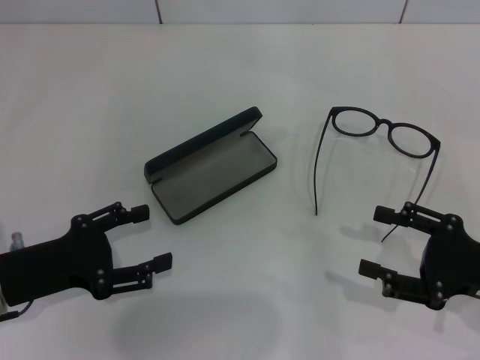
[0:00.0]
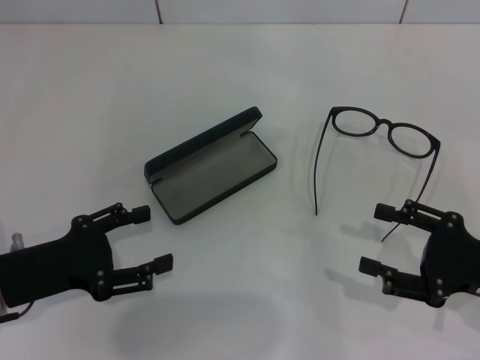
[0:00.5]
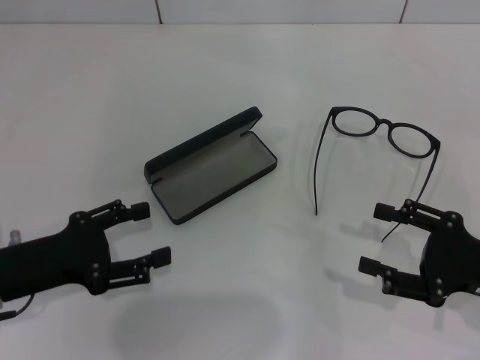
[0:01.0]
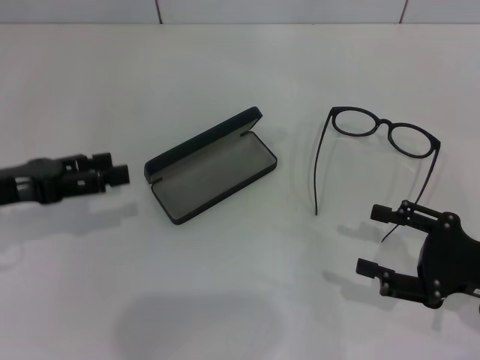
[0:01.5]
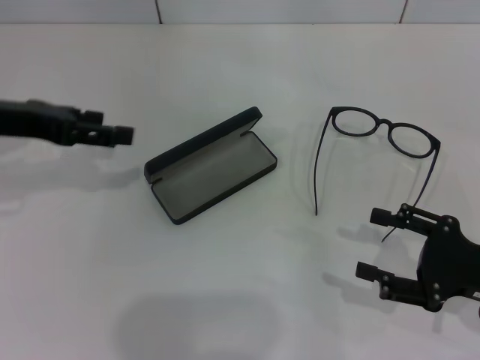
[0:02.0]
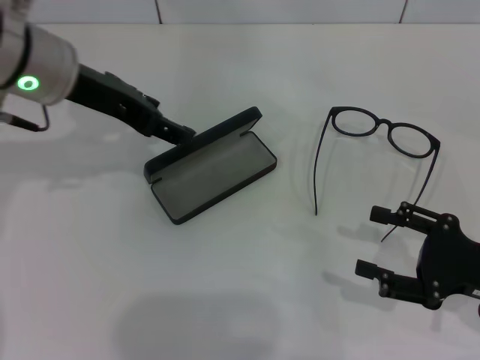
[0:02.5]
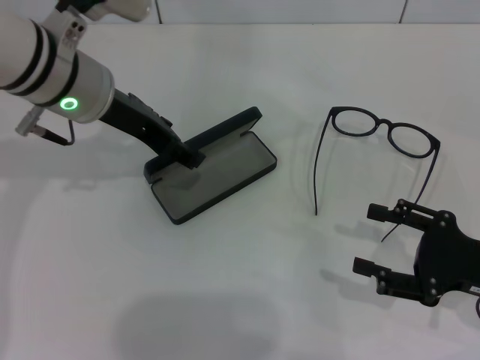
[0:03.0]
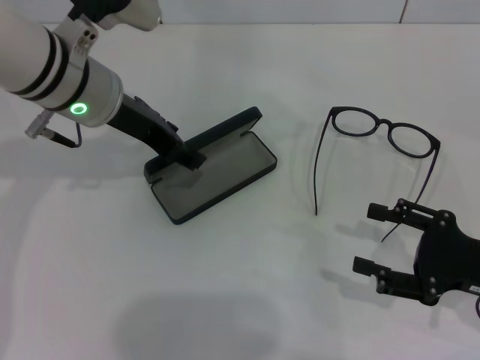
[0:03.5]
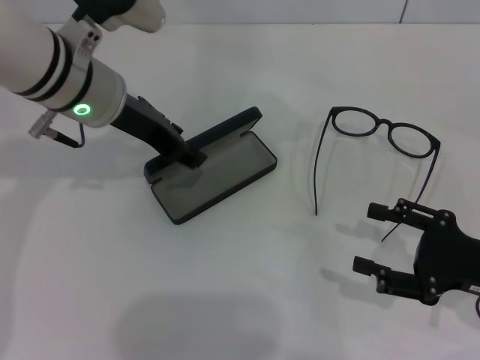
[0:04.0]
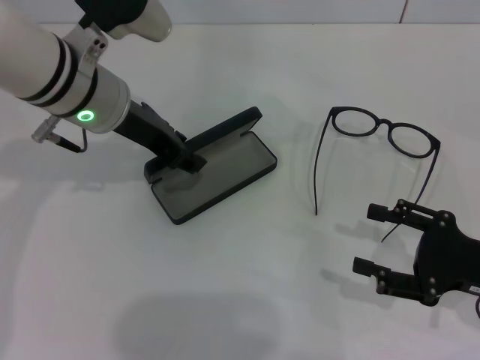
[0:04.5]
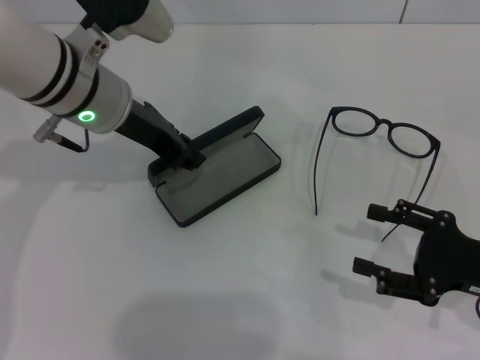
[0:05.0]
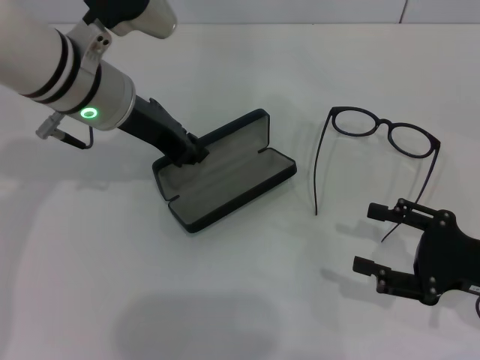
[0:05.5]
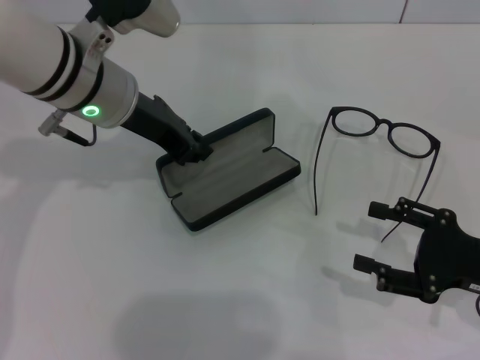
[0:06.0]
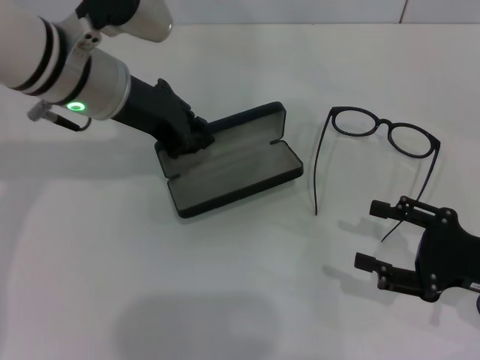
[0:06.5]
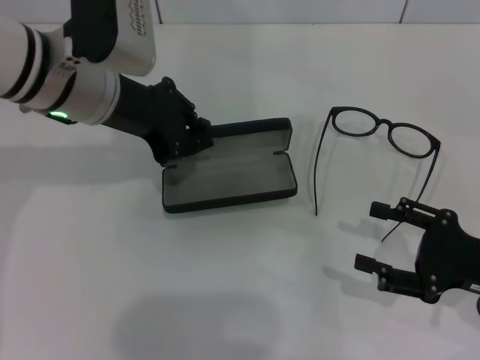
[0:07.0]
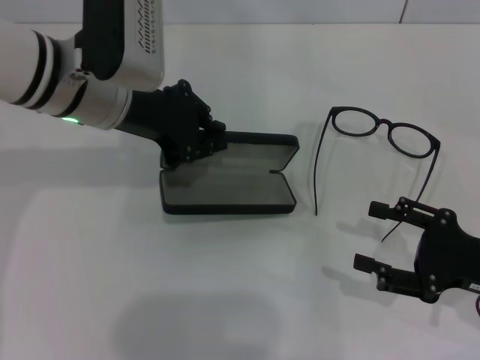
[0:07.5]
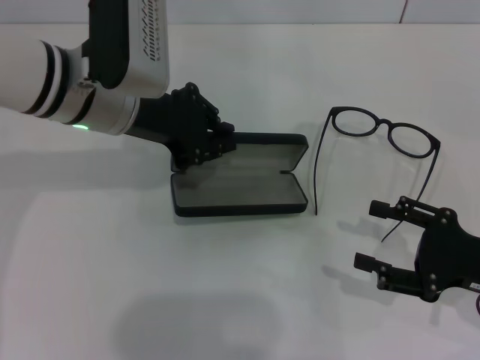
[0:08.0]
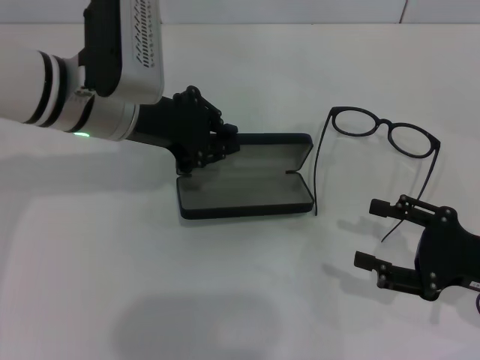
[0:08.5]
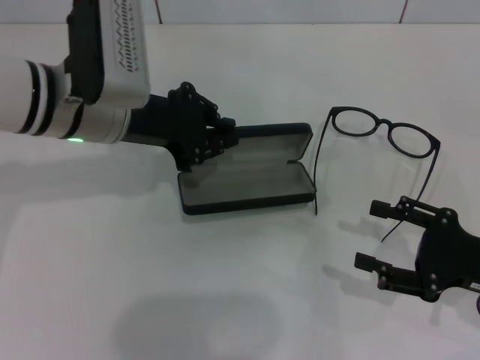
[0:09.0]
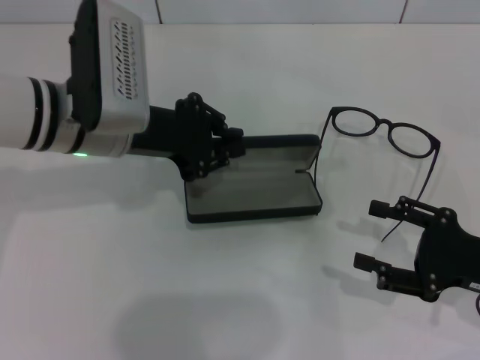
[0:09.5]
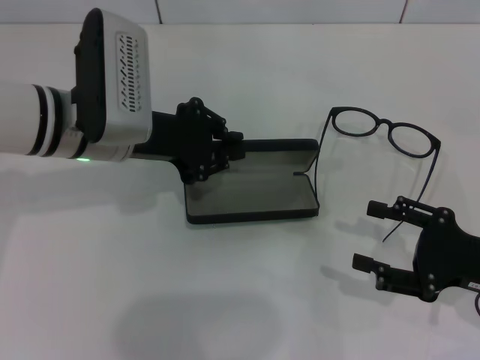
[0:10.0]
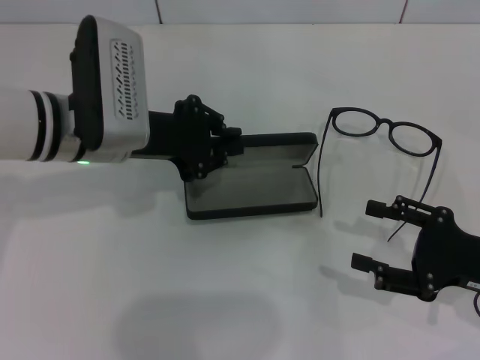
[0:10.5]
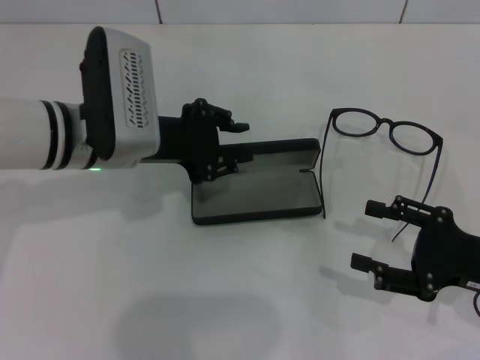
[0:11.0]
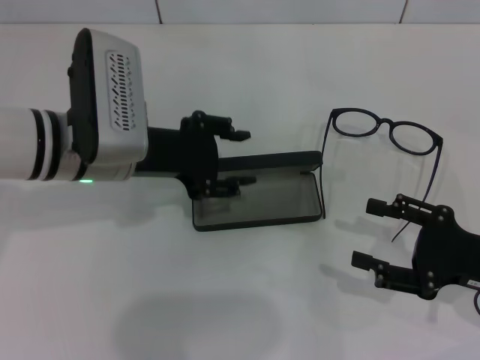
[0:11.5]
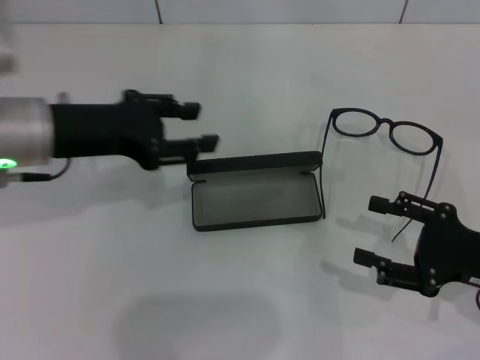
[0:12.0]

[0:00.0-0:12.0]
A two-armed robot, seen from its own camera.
Step, 0:00.0 to 0:04.5: Grab the glasses case with your left hand.
Step, 0:05.0 to 0:11.0: Place the glasses case in the center of the table with your left hand.
0:00.0 to 0:02.0: The left gripper heads upward and forward, covering approximately 15 cm.
0:02.0 to 0:04.0: The left gripper heads to the right, covering approximately 15 cm.
0:04.0 to 0:06.0: The left gripper closes.
0:08.0 to 0:10.0: The grippers stay close to where they were, moving slightly.
0:10.0 to 0:12.0: The left gripper moves to the left, some 5 cm, and opens.

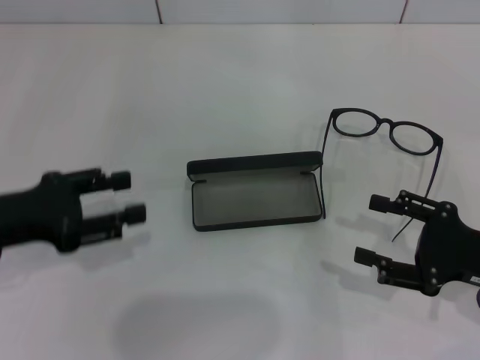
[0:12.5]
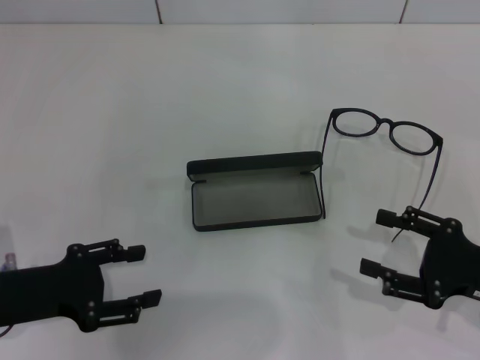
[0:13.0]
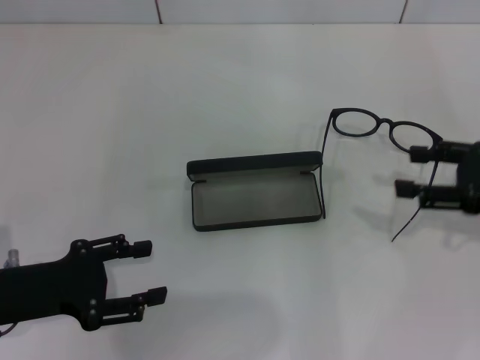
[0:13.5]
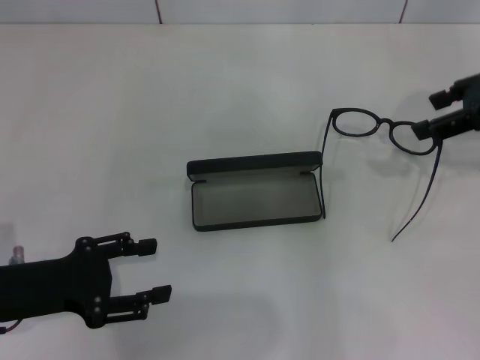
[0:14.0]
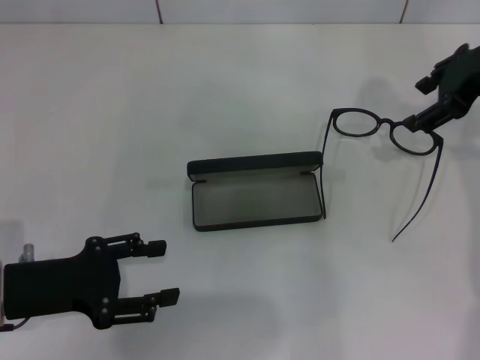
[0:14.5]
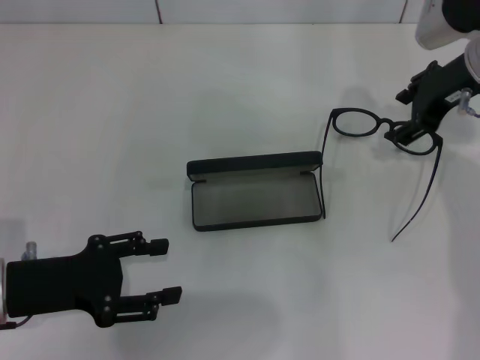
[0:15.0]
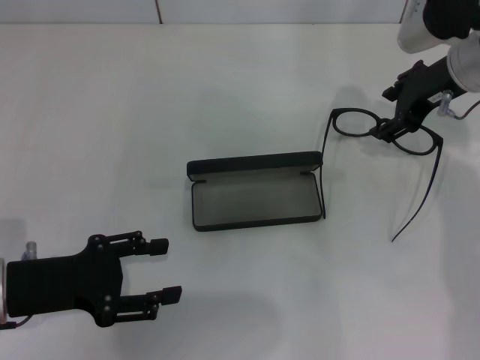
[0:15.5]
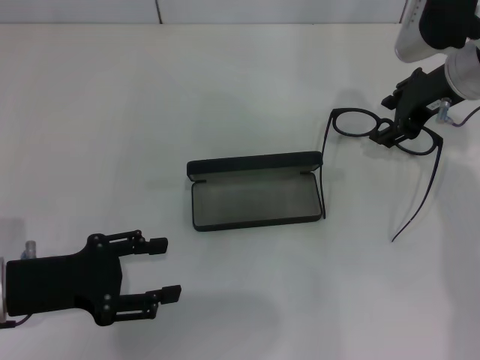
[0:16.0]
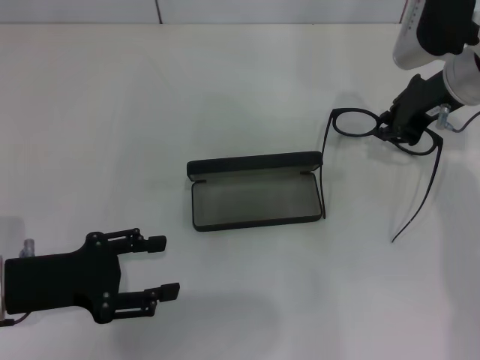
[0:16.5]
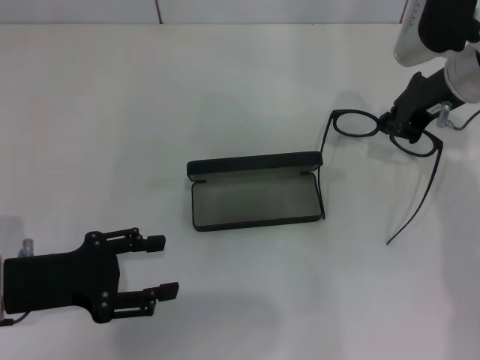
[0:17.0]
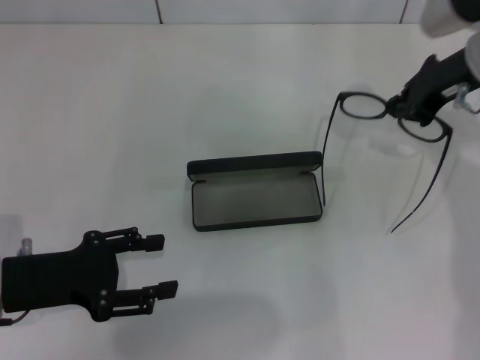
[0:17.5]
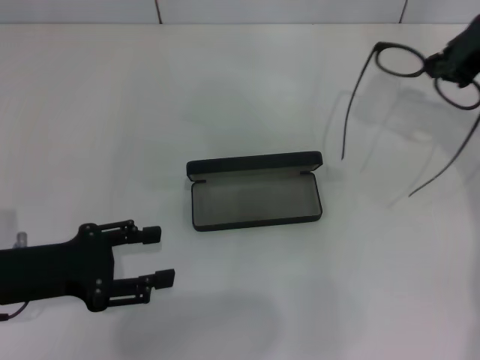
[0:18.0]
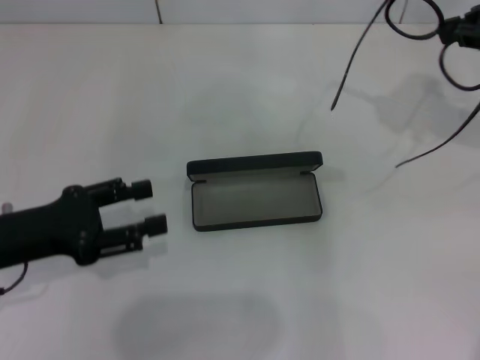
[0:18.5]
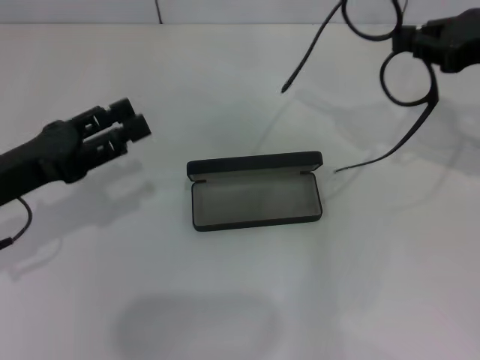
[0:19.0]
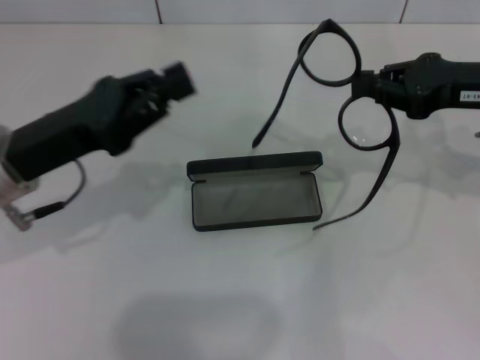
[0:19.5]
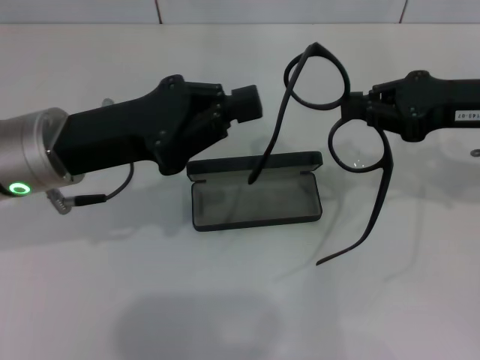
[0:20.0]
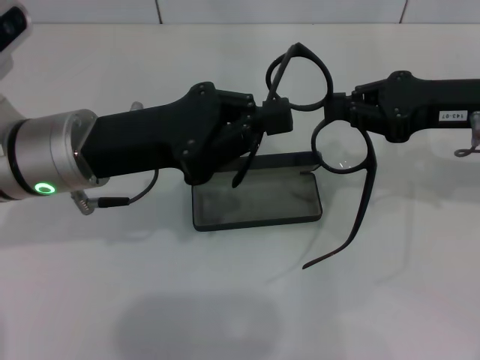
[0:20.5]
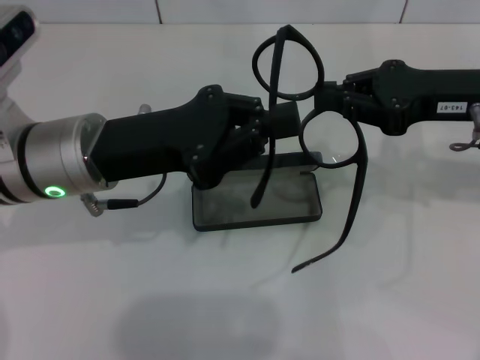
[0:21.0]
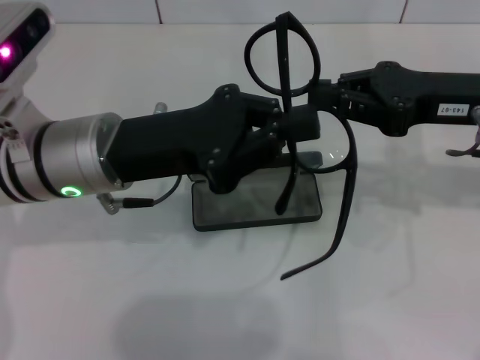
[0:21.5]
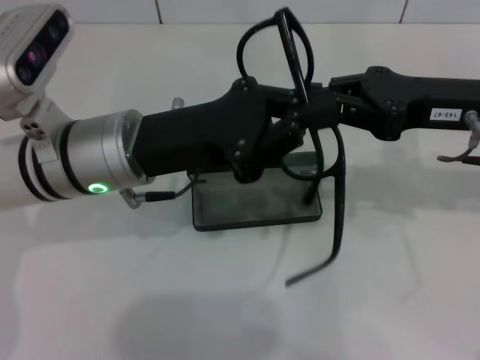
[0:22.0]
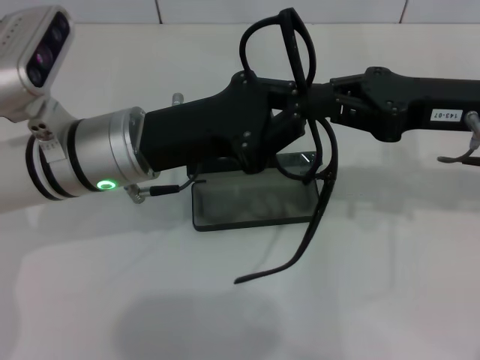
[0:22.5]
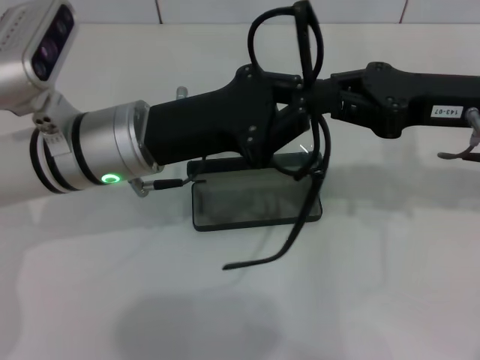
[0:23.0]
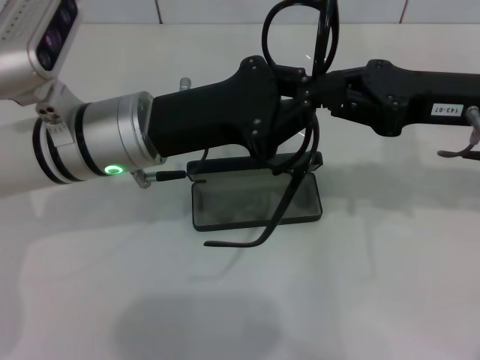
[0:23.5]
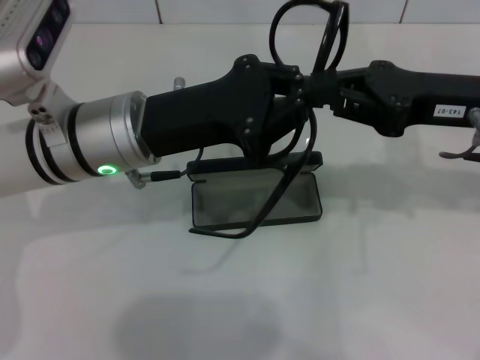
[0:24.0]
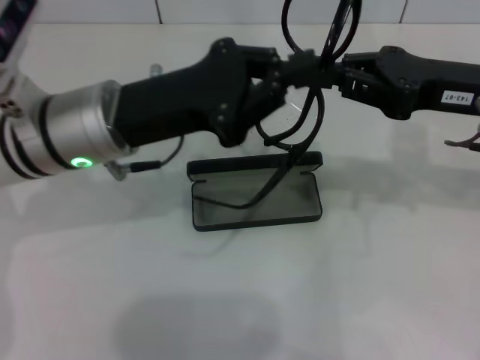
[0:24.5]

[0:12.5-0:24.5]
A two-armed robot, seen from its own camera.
Step, 0:12.5 to 0:16.5: Grab the eyeglass frame with your right hand.
0:12.5 to 0:14.5: The left gripper moves approximately 5 cm. The right gripper moves forward and upward, about 25 cm.
0:14.5 to 0:16.5: The right gripper moves downward, roughly 5 cm, and closes.
0:16.5 to 0:18.5: The right gripper goes approximately 15 cm upward and to the right, and closes.
0:18.5 to 0:20.5: The right gripper heads downward and to the left, covering some 10 cm. The left gripper heads to the right, forward and upward, covering roughly 15 cm, and closes up.
0:20.5 to 0:22.5: The grippers stay close to where they were, moving slightly.

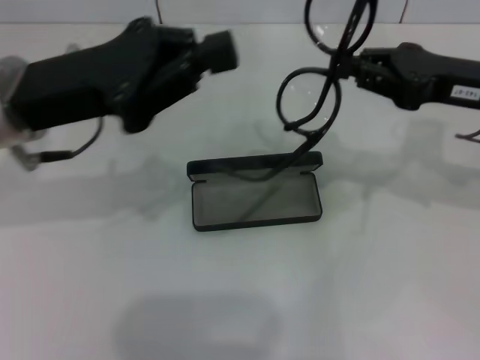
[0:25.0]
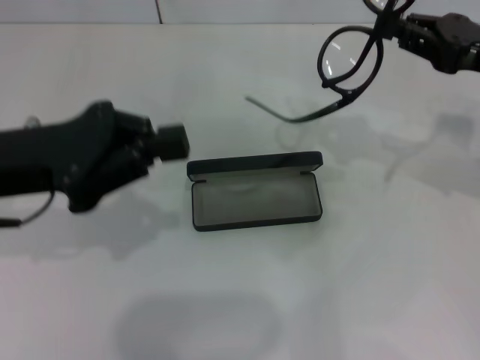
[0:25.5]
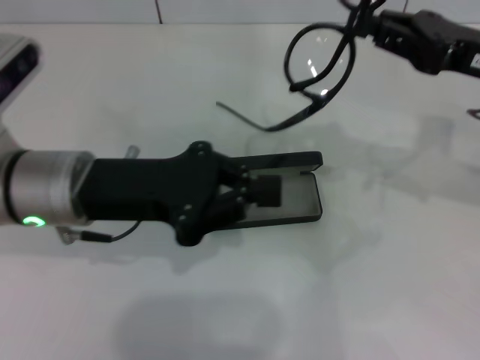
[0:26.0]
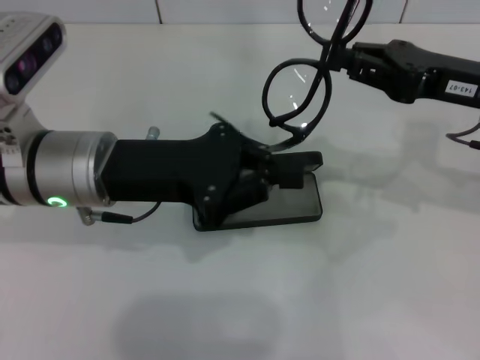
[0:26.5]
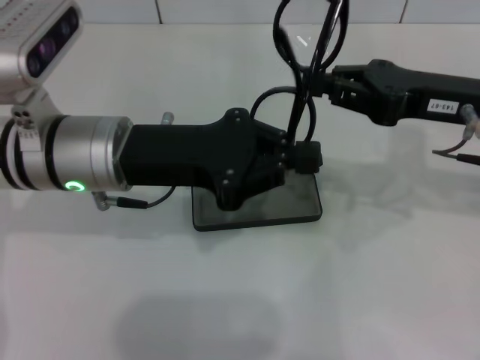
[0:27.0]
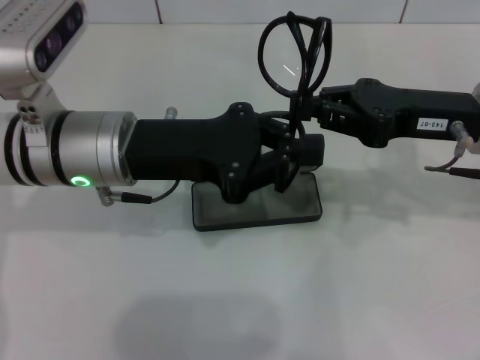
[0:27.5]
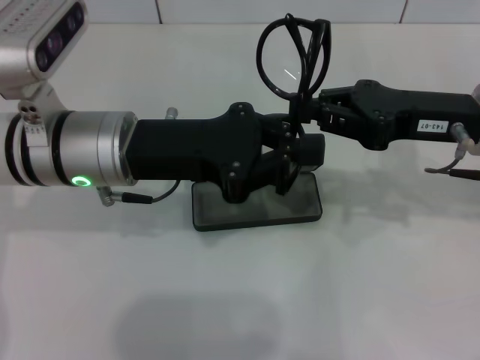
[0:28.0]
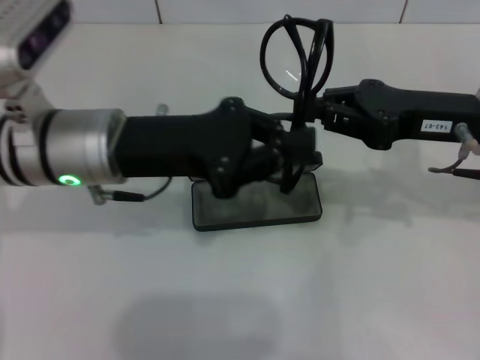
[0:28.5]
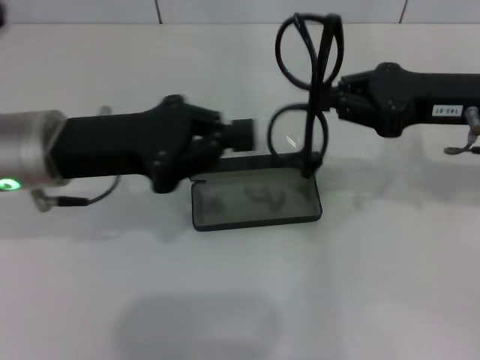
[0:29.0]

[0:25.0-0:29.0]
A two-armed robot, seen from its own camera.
Step, 0:25.0 to 0:28.0: Fold the frame with your left hand.
0:25.0 to 0:27.0: The left gripper goes some 5 cm to the right.
0:27.0 to 0:29.0: The grippers move only a little.
